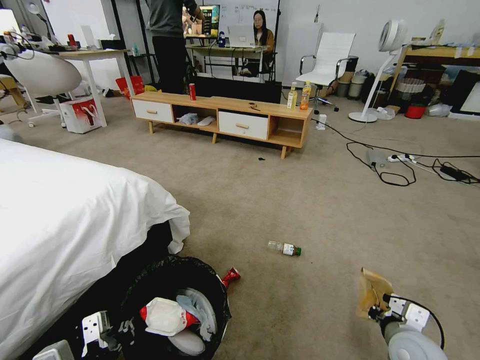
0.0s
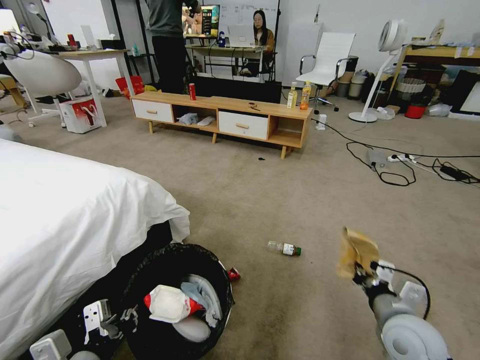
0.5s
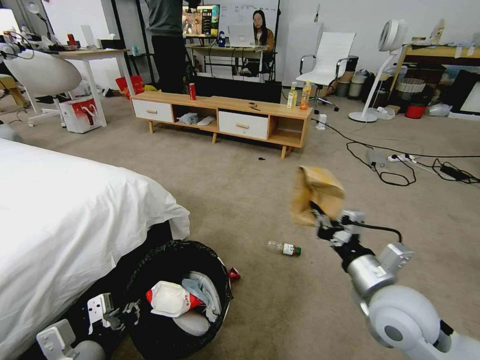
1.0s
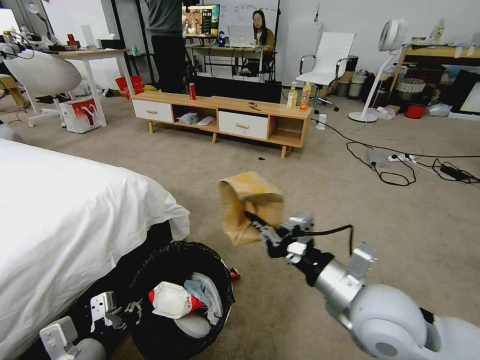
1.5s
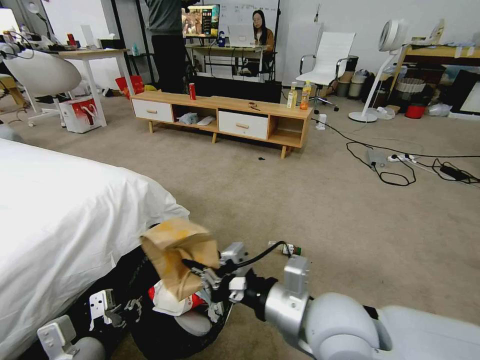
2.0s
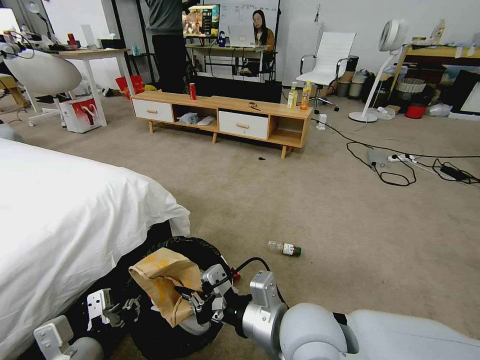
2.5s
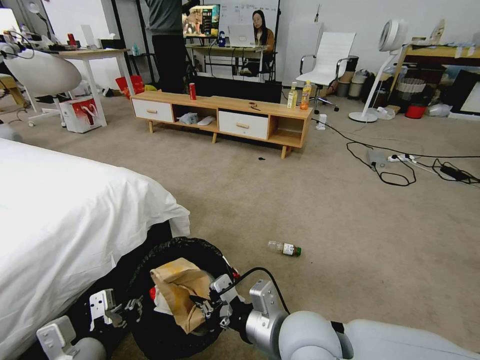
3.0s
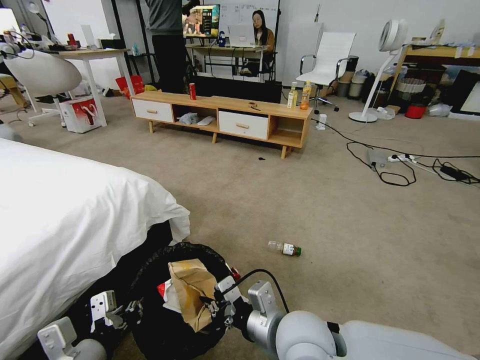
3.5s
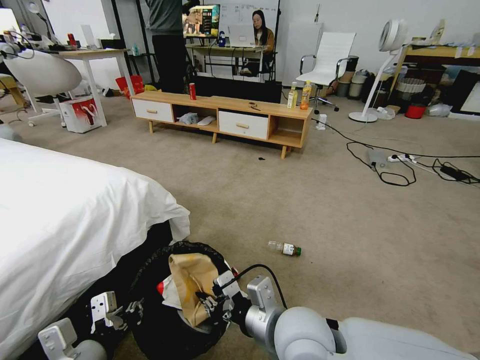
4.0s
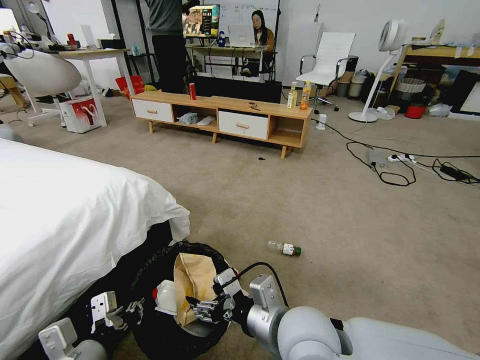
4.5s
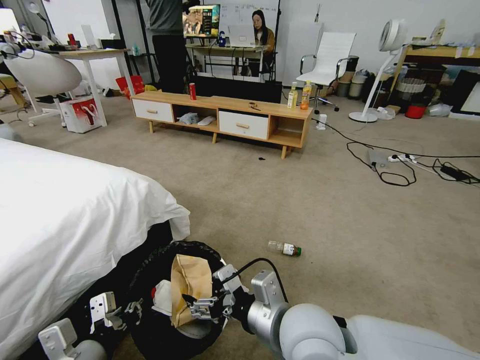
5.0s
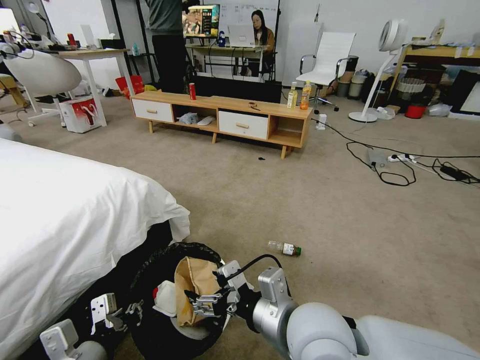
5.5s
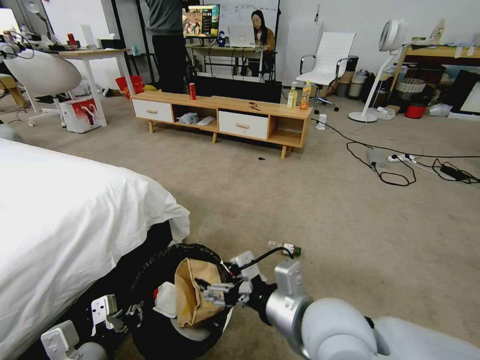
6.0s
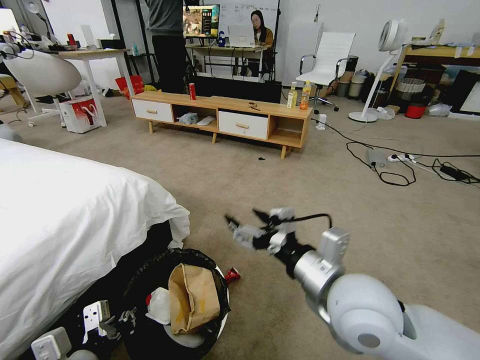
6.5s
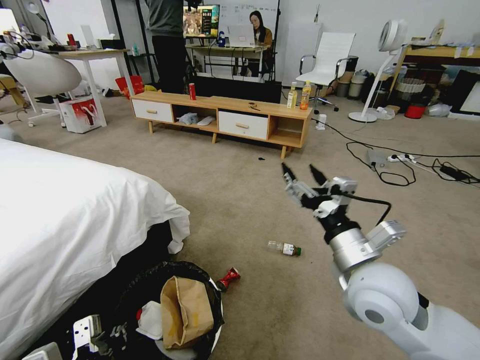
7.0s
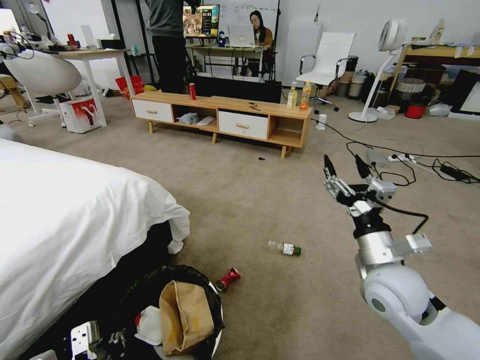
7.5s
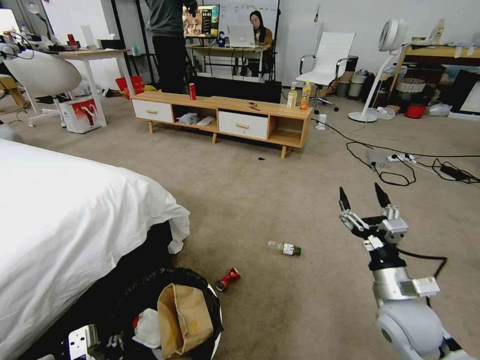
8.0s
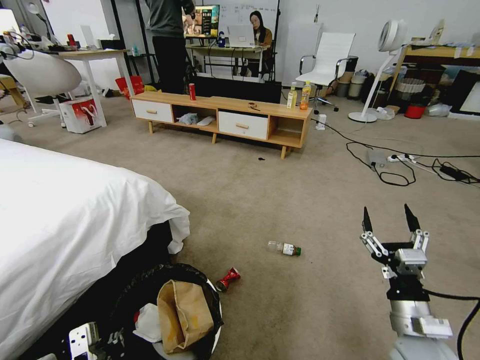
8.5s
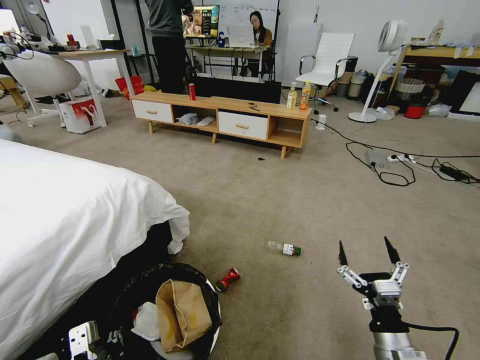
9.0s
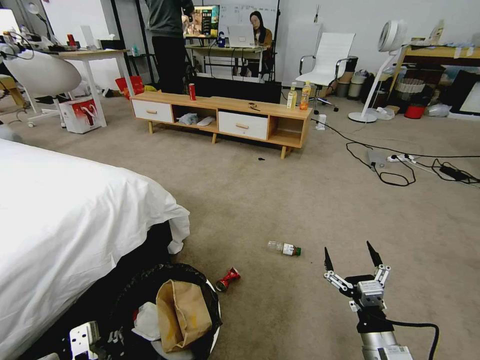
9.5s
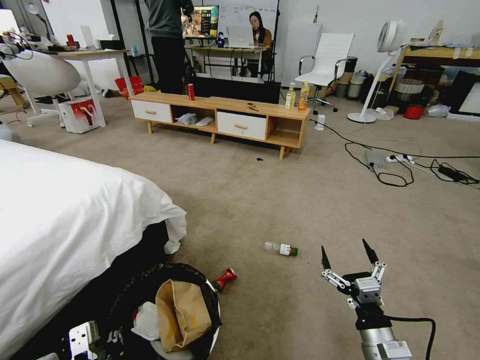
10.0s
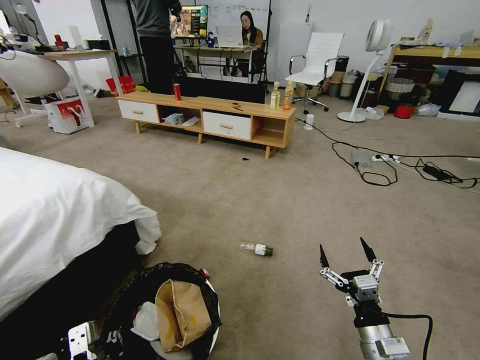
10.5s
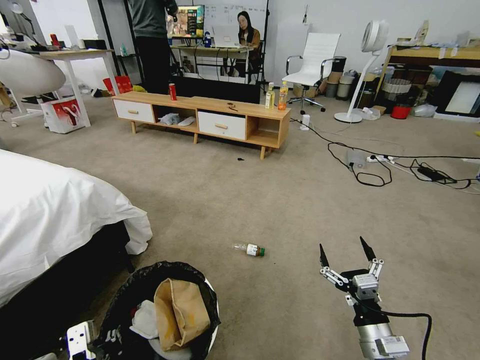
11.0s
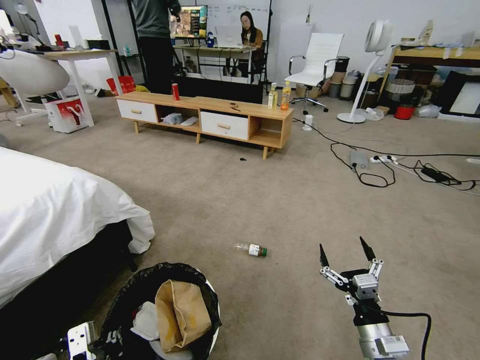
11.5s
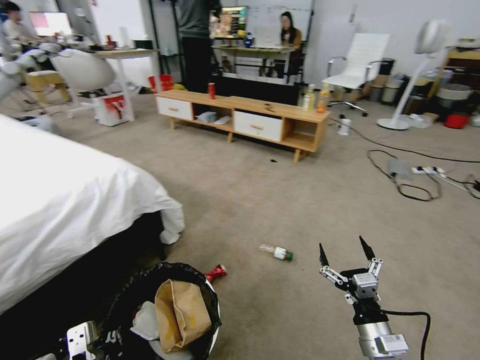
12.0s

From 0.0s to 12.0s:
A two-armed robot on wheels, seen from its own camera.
Task of the whole recording: Pick up the trash bin and place the garbage on the floor into it.
From 0.0s to 2.0s: The right gripper moves to the left and upward, about 30 cm.
From 2.0s to 4.0s: The right gripper moves downward, approximately 5 cm.
From 4.0s to 6.0s: The right gripper goes roughly 5 cm upward, and opens its fingers. The left gripper closes up.
From 6.0s to 8.0s: The left gripper shifts by roughly 5 cm, while the right gripper moves to the right and downward, approximately 20 cm.
From 8.0s to 10.0s: The right gripper travels backward and downward by some 10 cm.

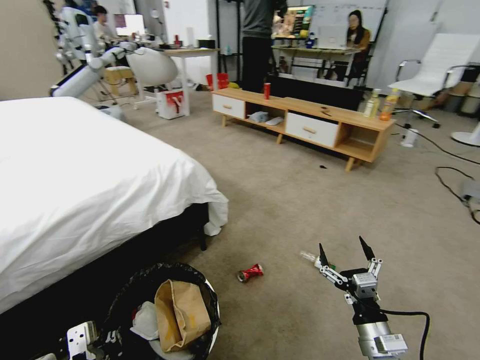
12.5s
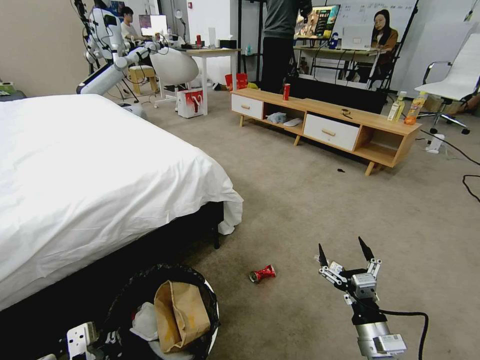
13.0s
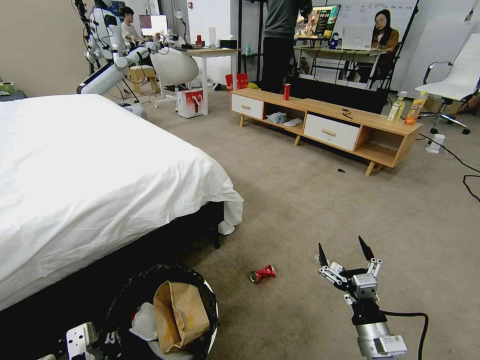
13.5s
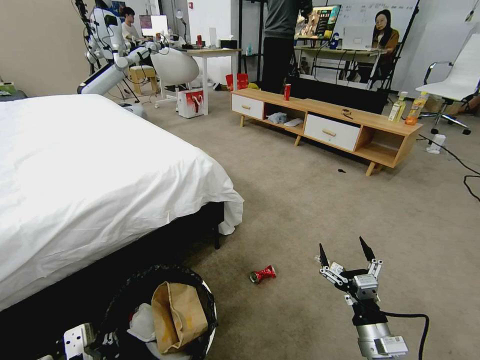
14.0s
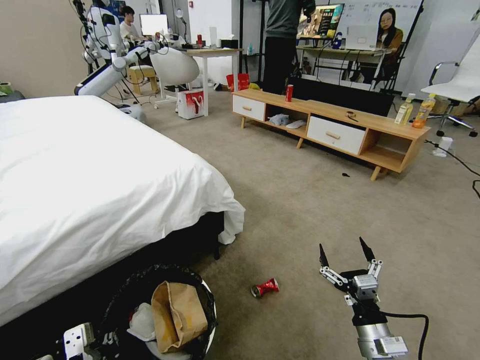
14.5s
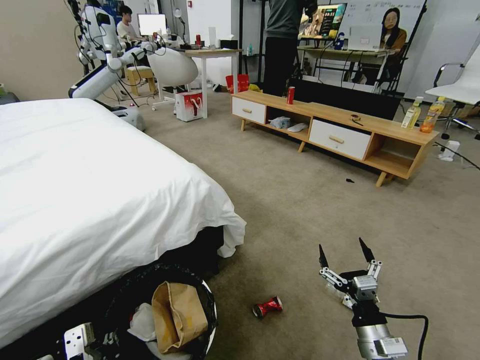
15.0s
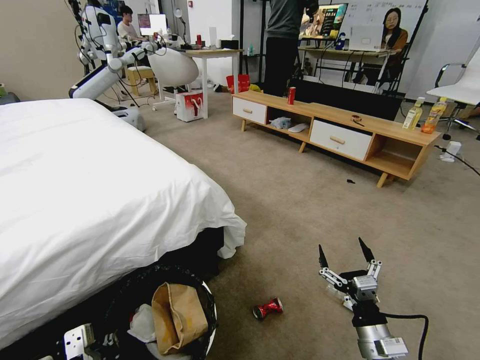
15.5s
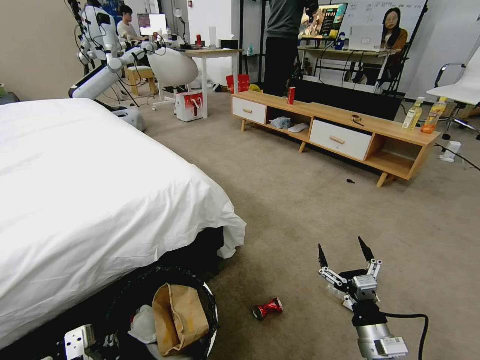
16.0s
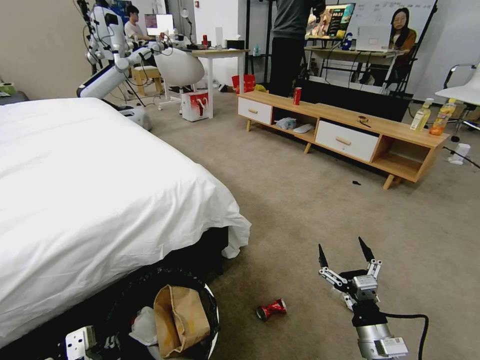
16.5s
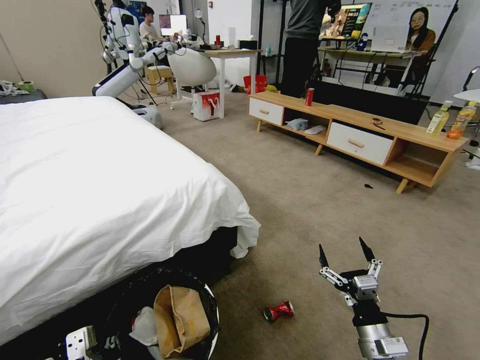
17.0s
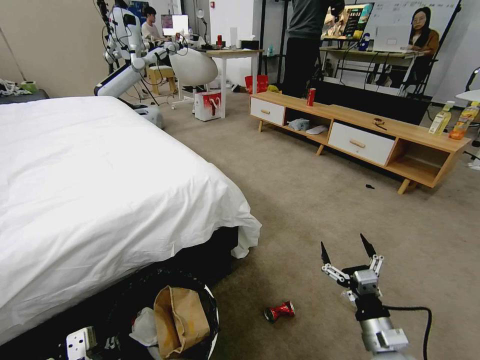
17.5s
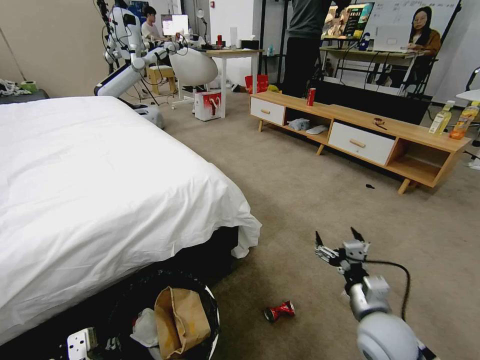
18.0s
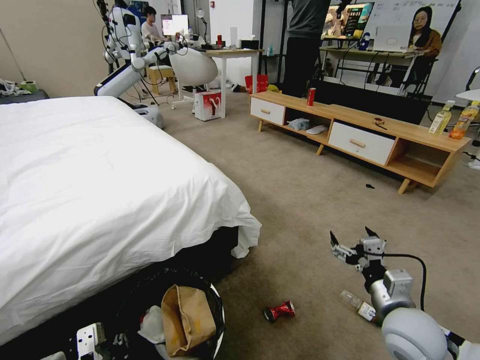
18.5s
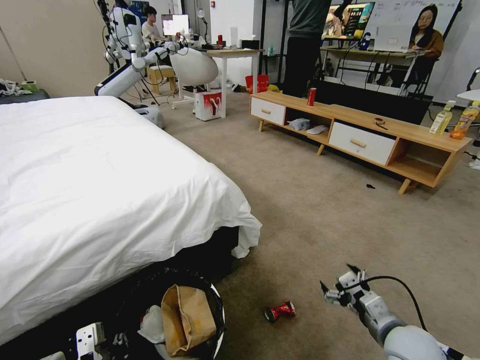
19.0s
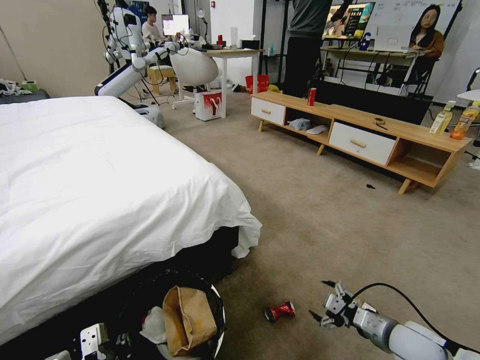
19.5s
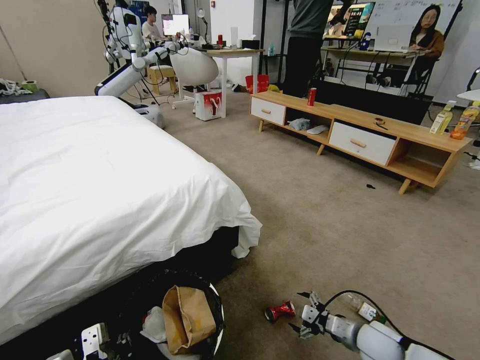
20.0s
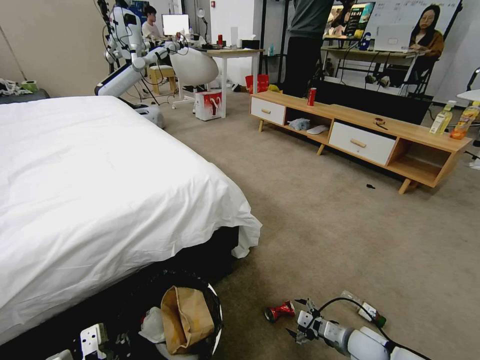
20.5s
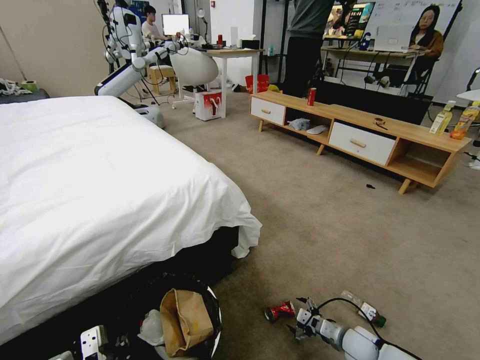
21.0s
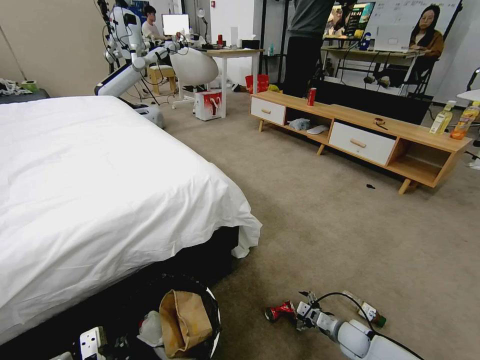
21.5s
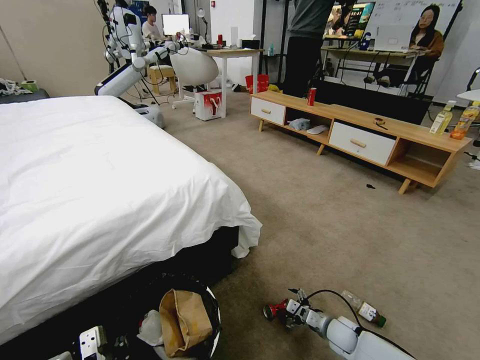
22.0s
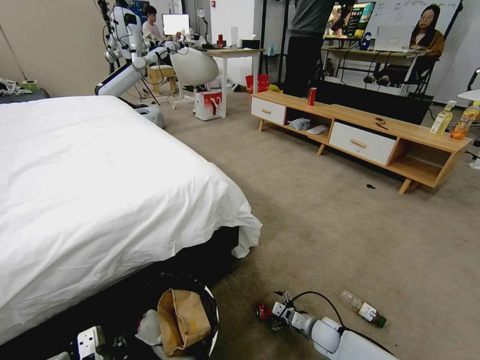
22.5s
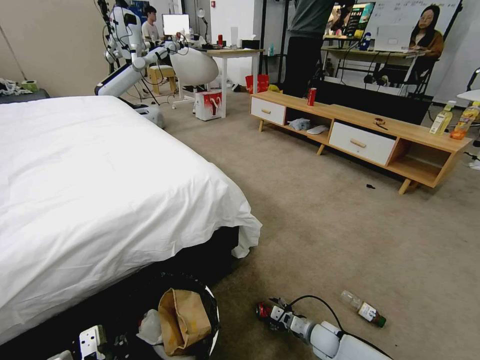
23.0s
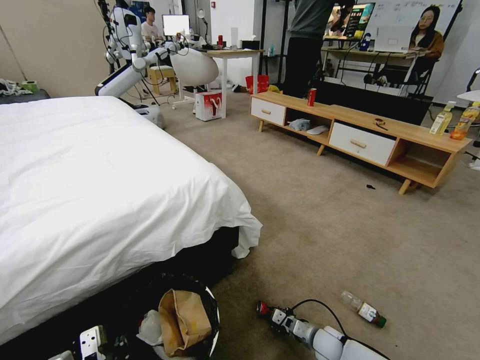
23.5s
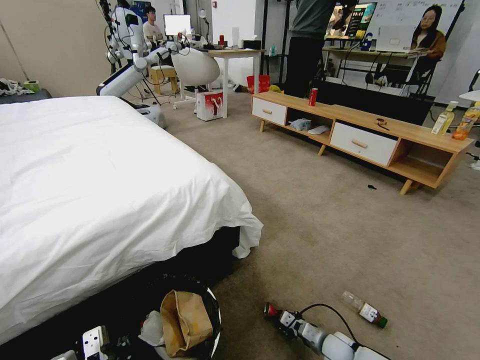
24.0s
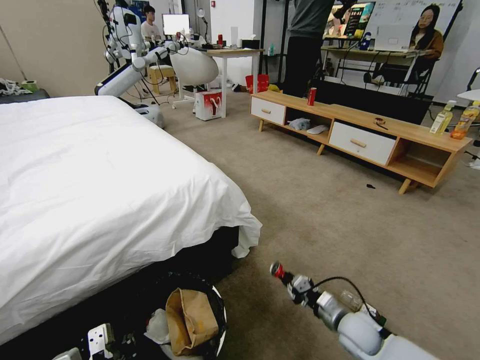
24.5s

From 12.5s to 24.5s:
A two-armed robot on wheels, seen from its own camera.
Task of the whole recording: Pick up the trash bin and place the garbage on the floor into it.
From 16.5s to 18.5s: The right gripper is displaced upward and forward by approximately 10 cm.
From 18.5s to 20.5s: The right gripper moves downward, about 20 cm.
From 20.5s to 22.5s: The right gripper shifts about 10 cm downward, to the left and forward.
From 22.5s to 24.5s: The right gripper heads upward, covering approximately 15 cm, and closes up.

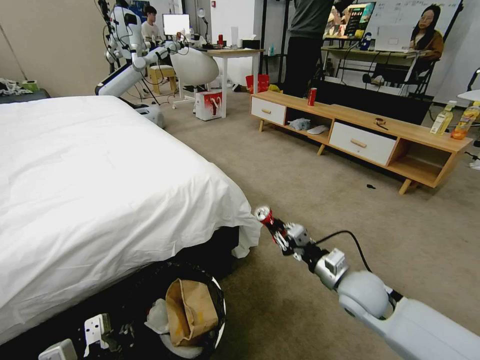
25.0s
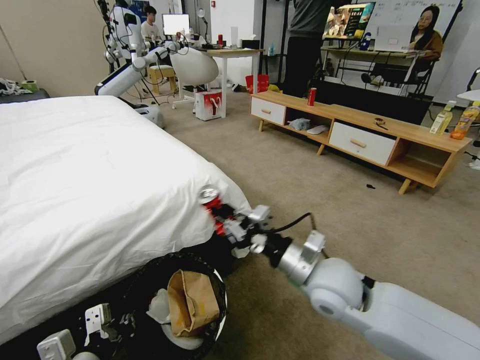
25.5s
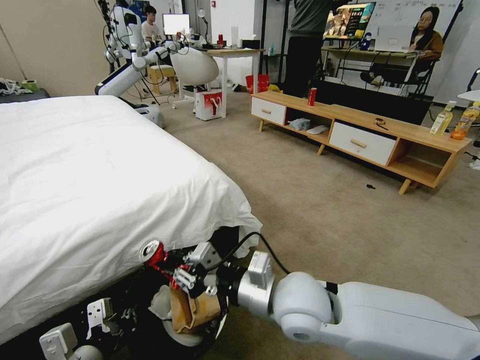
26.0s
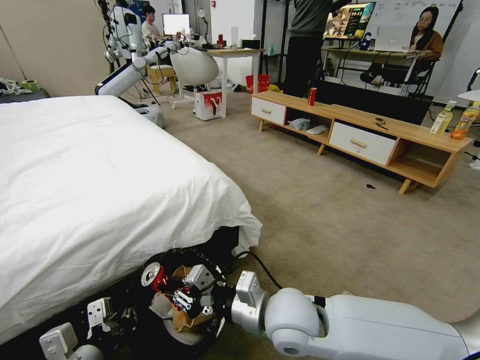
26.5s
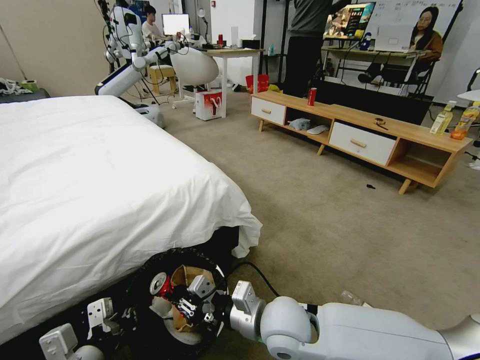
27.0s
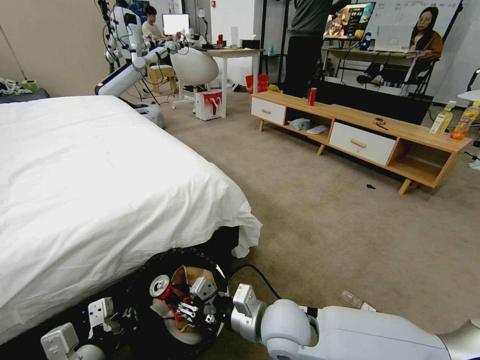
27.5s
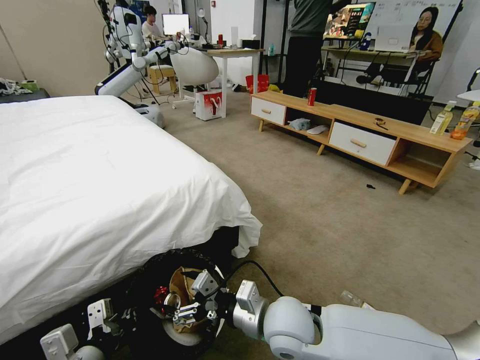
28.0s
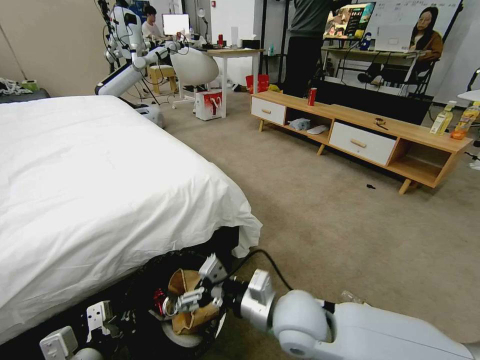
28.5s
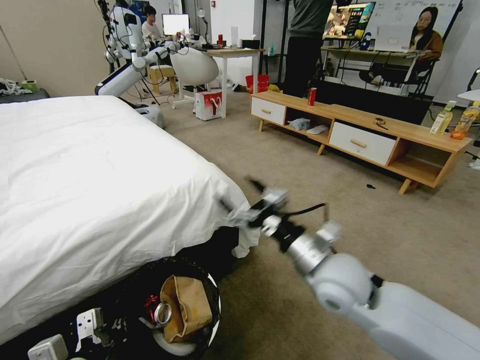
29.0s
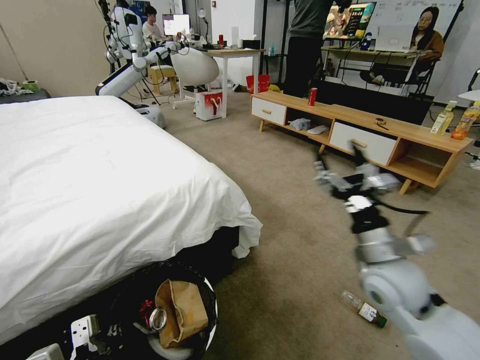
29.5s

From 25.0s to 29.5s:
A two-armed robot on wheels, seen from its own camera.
Task of the whole recording: Pick up the trash bin and place the garbage on the floor into it.
From 25.0s to 27.0s: The right gripper goes approximately 20 cm to the left.
From 27.0s to 29.5s: The right gripper goes some 20 cm to the right and upward, and opens.
